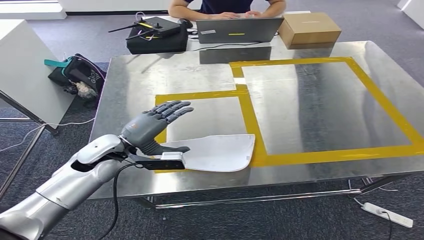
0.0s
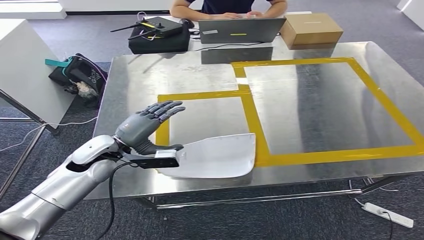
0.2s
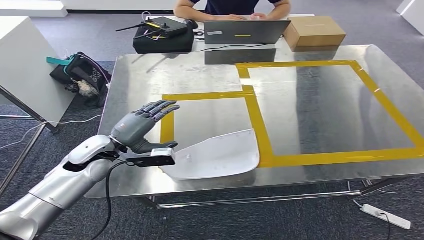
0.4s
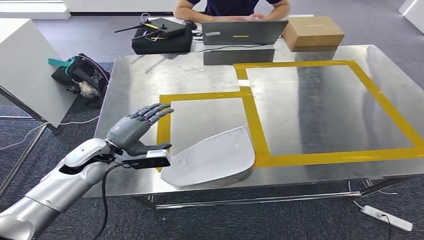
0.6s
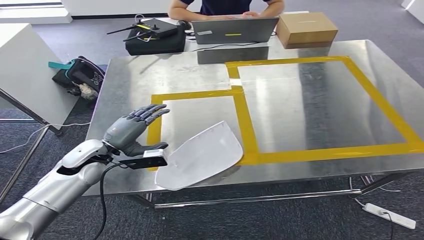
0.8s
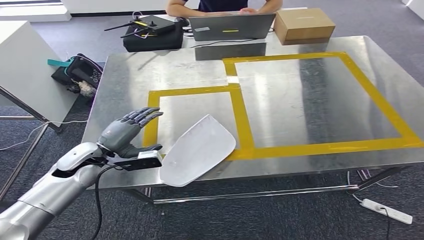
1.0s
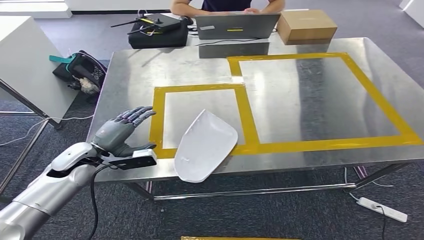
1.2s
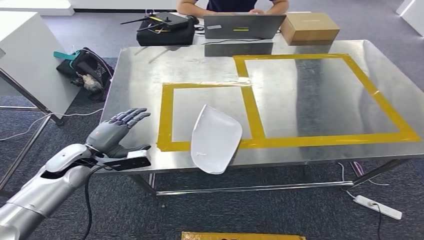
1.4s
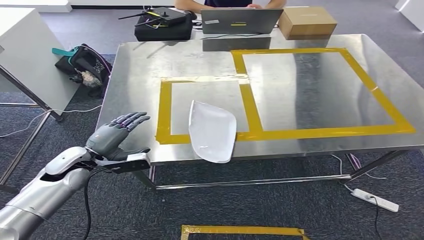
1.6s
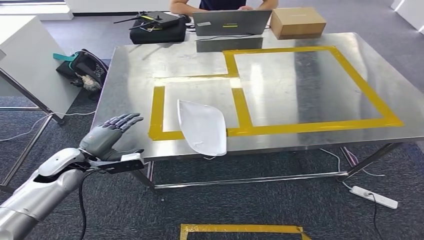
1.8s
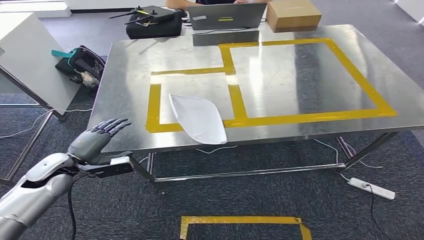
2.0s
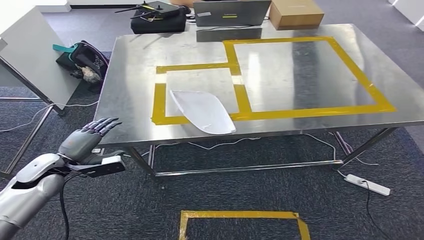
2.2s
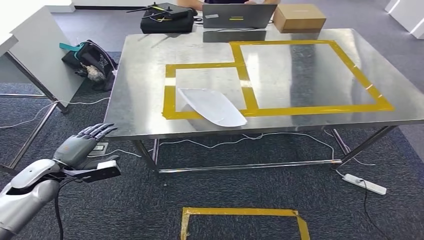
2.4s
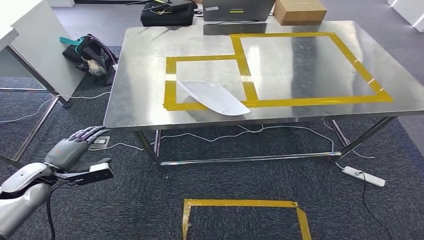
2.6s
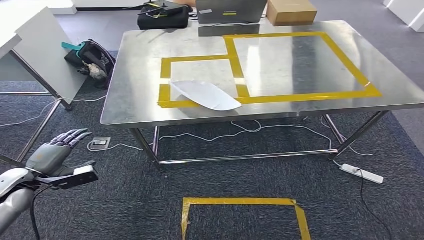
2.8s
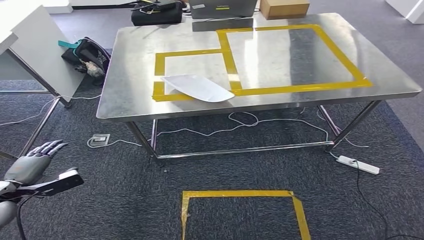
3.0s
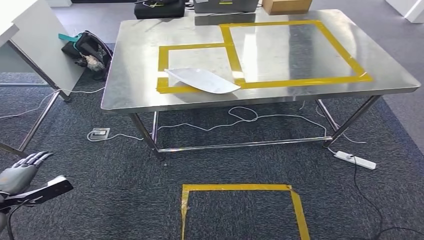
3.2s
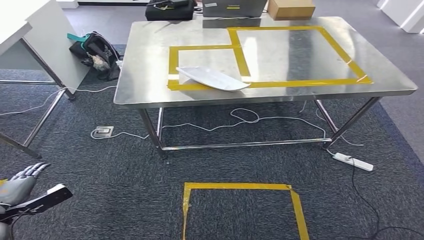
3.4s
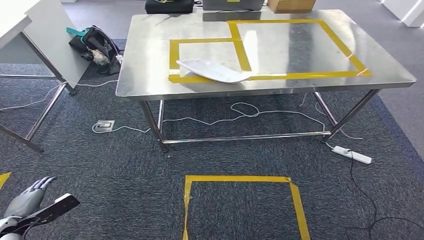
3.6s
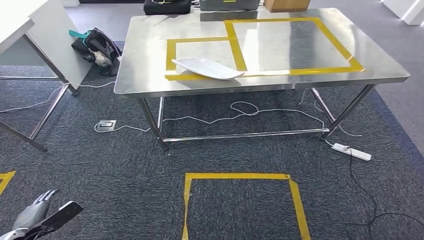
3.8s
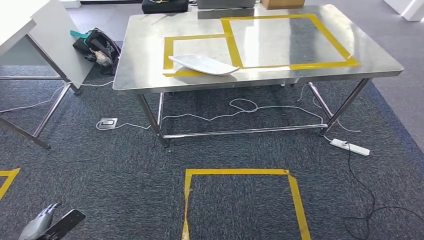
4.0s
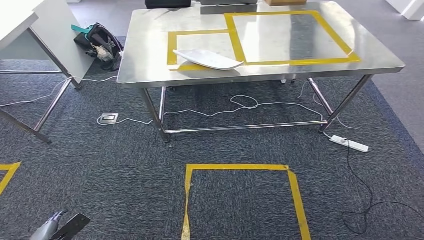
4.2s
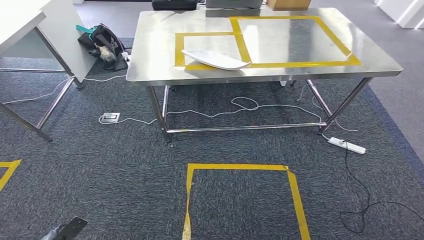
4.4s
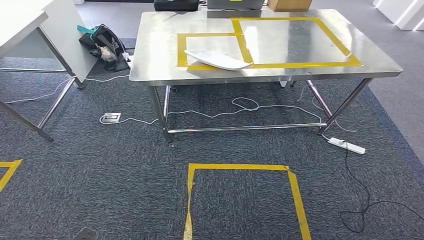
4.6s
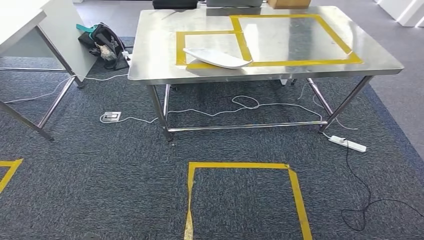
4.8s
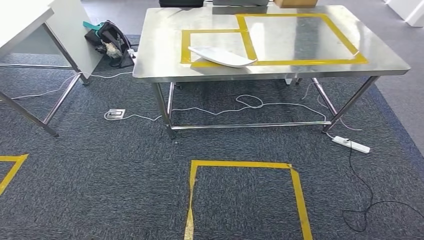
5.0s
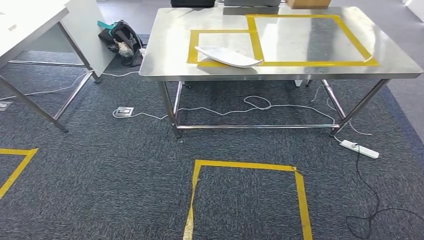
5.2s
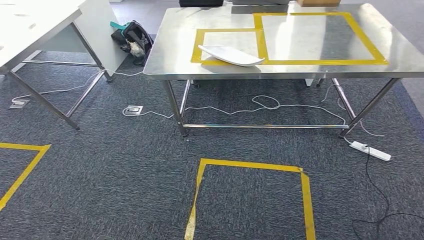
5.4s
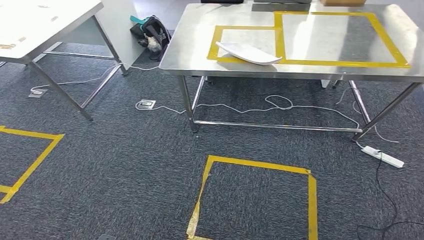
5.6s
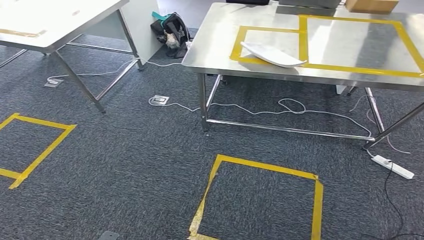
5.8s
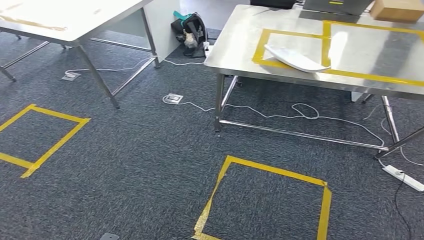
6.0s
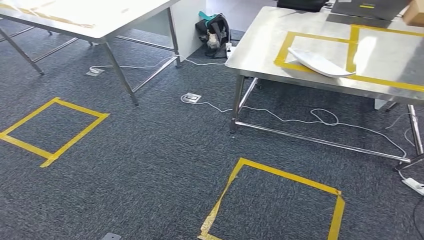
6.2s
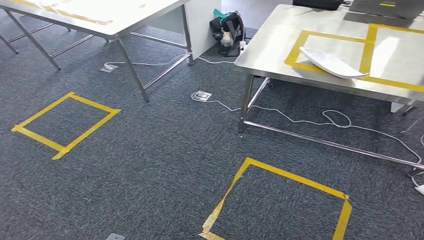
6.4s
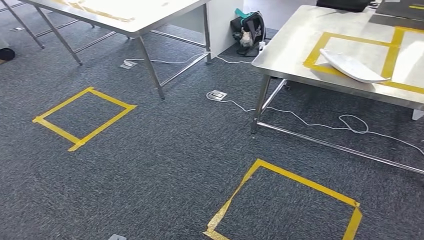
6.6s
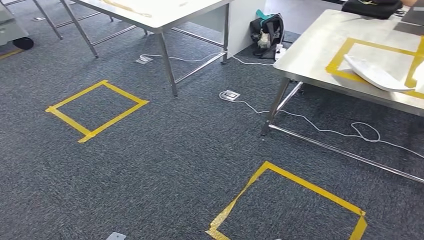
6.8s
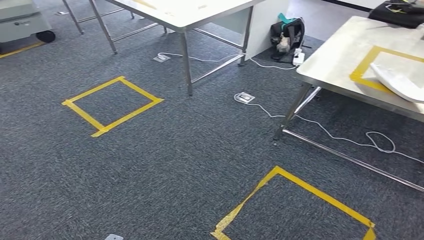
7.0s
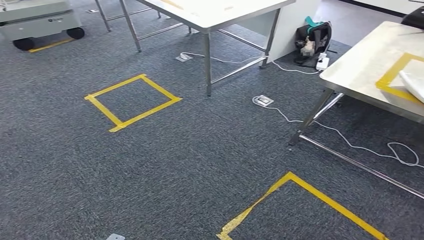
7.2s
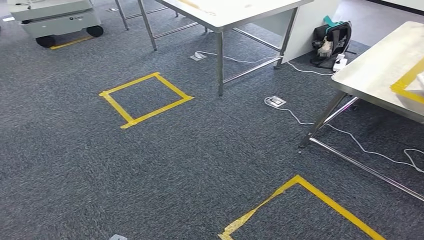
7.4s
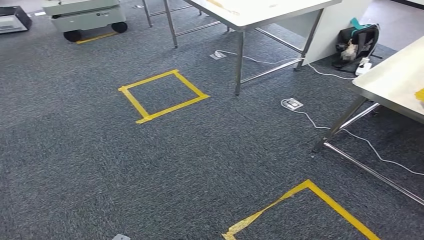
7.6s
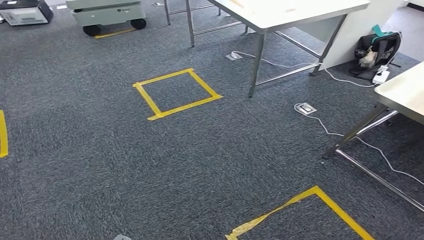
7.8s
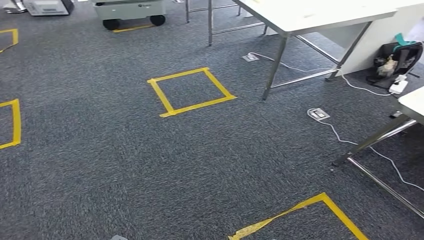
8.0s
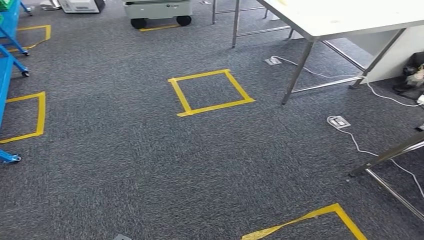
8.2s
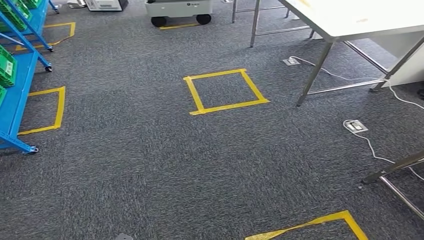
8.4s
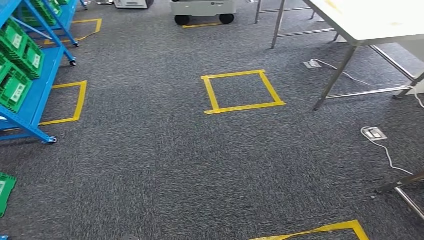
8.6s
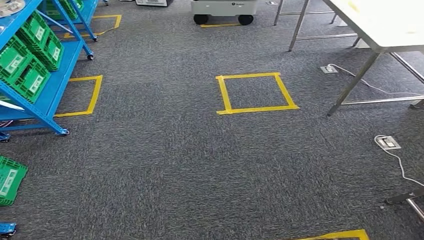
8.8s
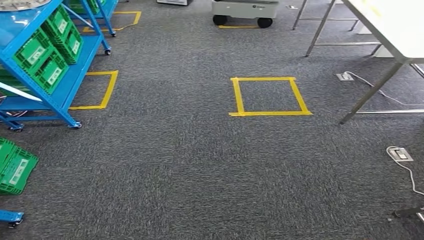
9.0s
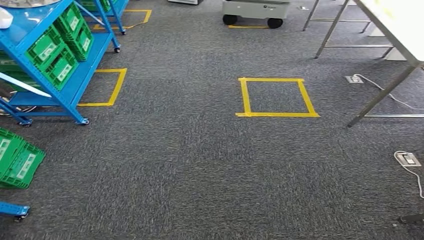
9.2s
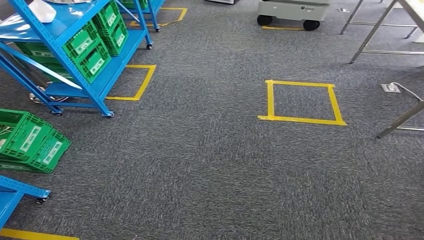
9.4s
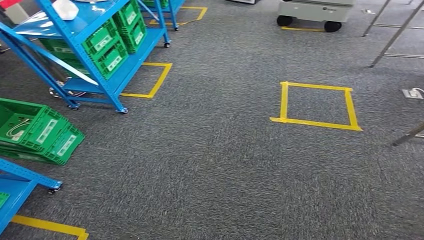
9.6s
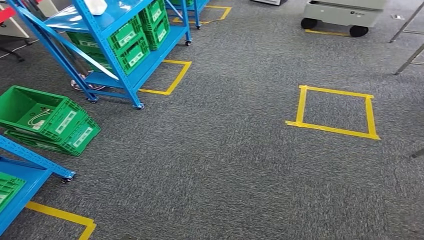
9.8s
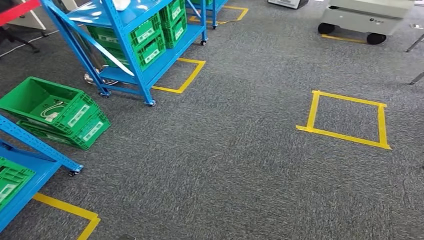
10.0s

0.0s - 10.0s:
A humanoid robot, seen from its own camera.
Step, 0.0s - 2.8s: Insert the small component into the corresponding slot on the workbench.

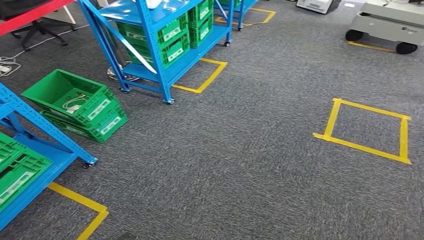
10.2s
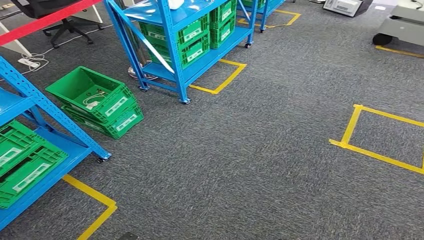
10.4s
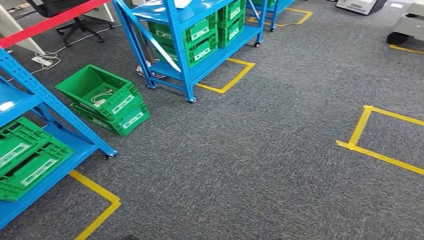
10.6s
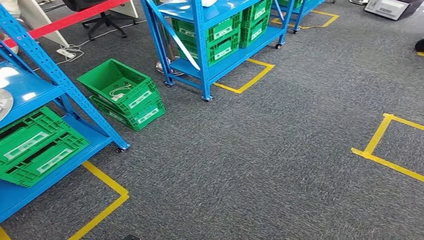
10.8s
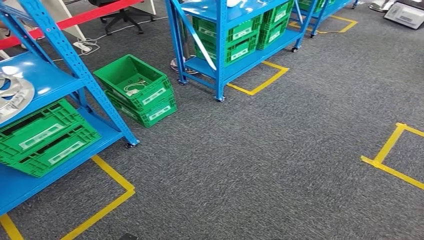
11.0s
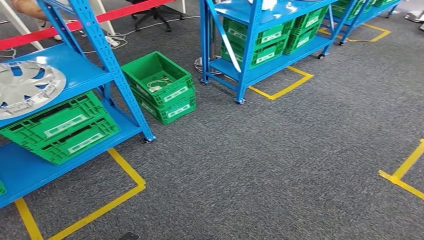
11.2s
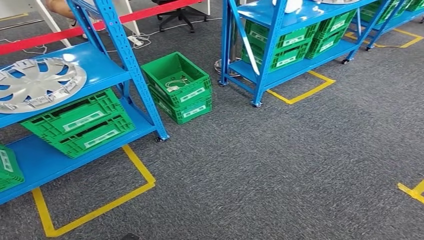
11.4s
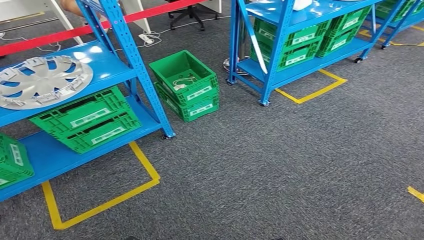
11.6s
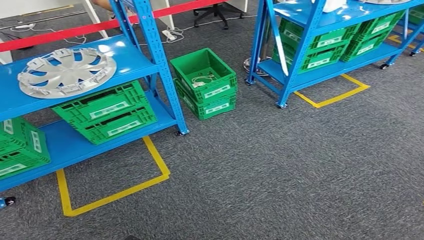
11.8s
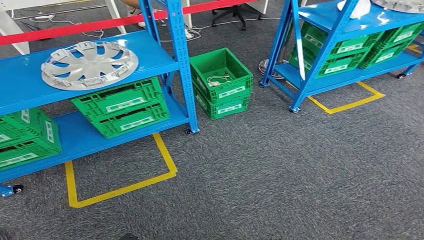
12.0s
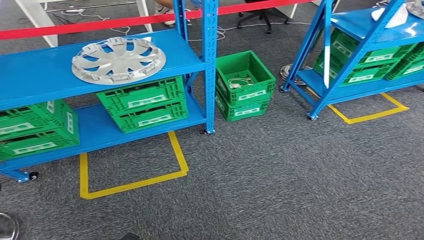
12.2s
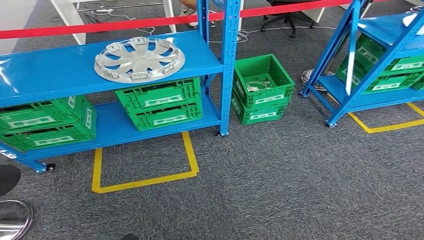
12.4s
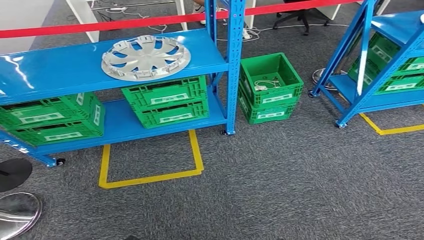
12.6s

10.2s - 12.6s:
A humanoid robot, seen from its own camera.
Step, 10.2s - 12.6s: Return to the initial position at the workbench.
